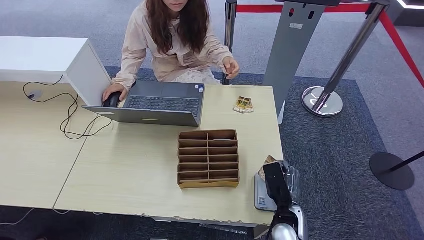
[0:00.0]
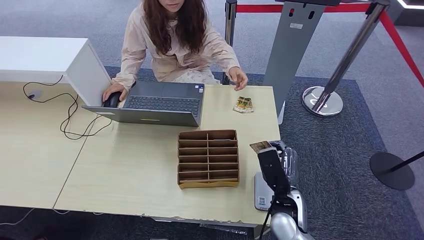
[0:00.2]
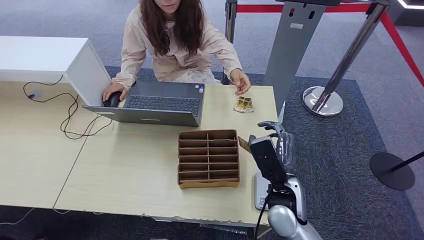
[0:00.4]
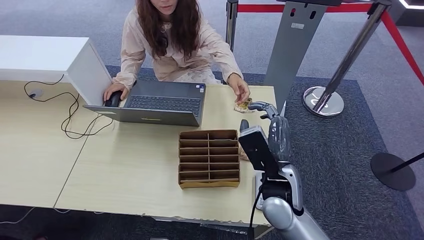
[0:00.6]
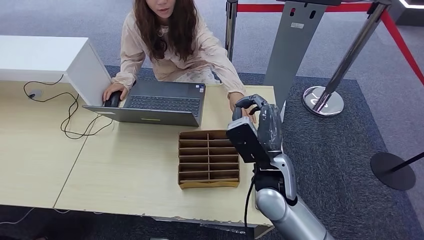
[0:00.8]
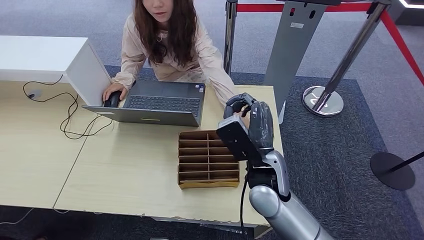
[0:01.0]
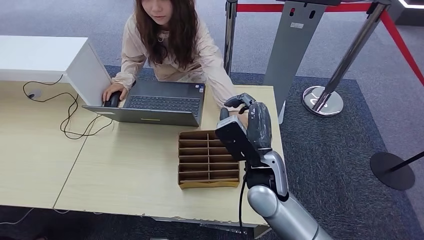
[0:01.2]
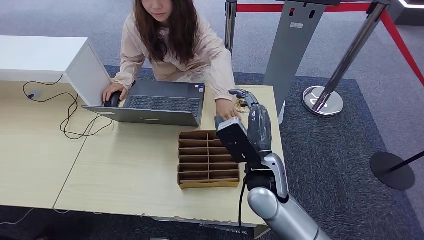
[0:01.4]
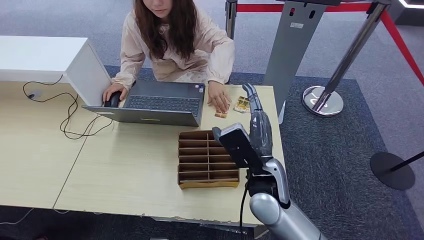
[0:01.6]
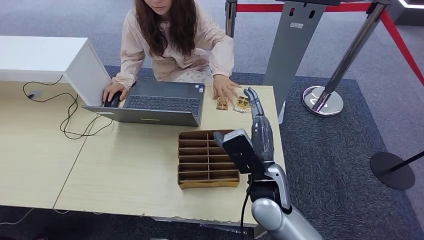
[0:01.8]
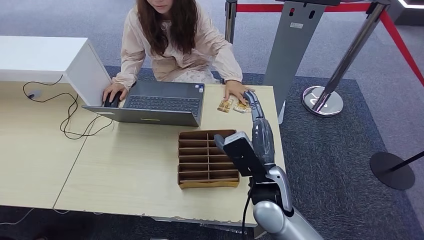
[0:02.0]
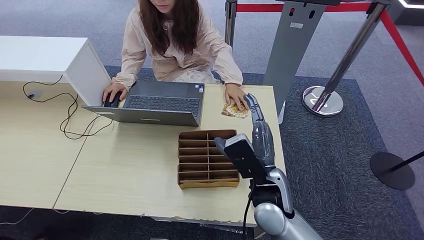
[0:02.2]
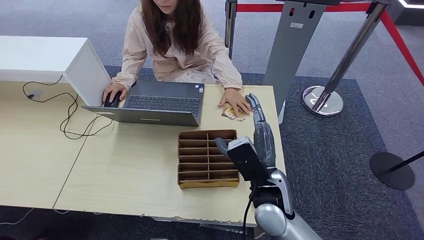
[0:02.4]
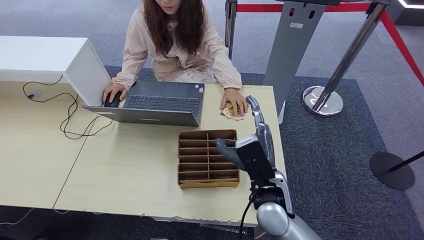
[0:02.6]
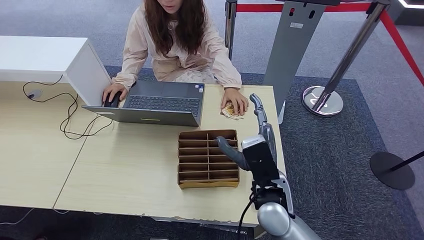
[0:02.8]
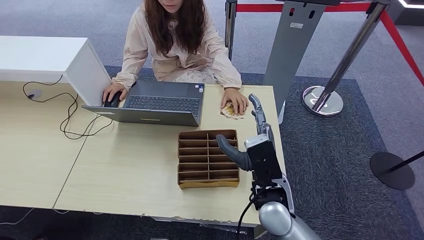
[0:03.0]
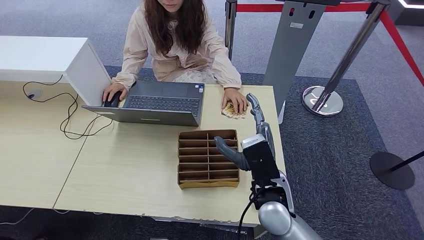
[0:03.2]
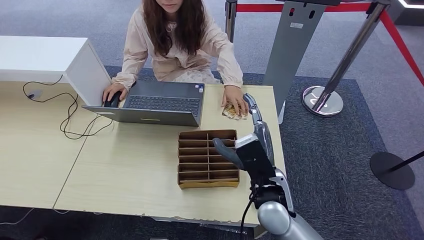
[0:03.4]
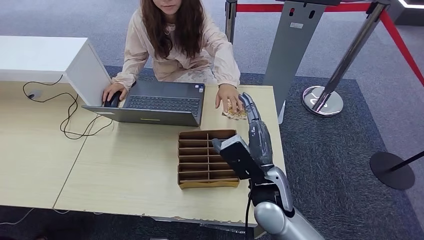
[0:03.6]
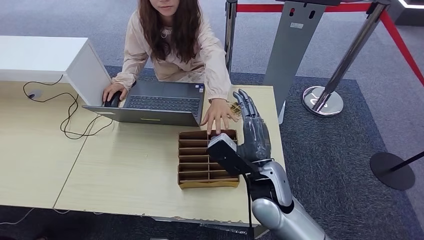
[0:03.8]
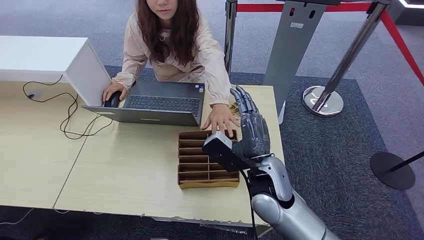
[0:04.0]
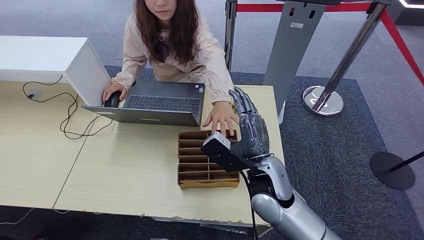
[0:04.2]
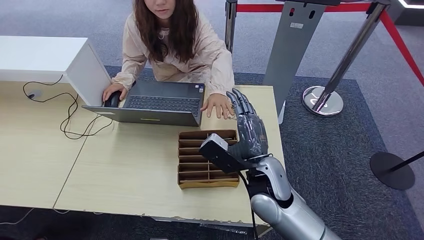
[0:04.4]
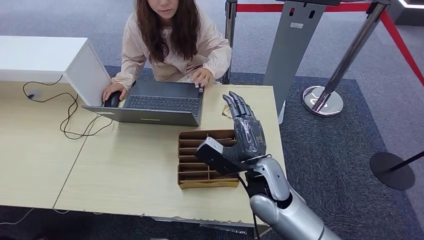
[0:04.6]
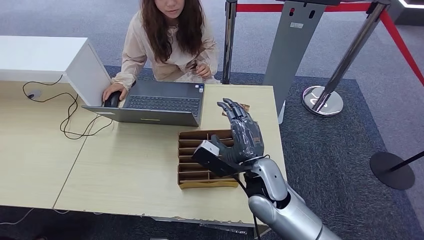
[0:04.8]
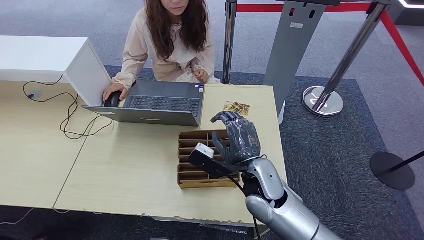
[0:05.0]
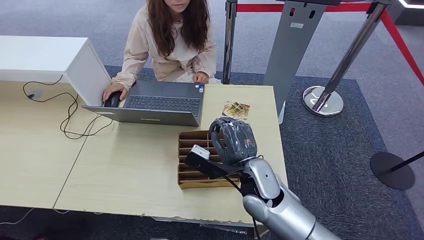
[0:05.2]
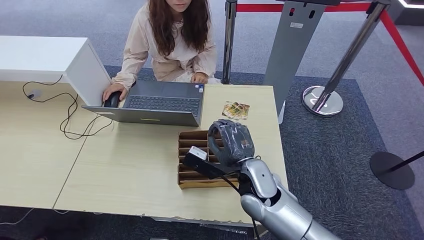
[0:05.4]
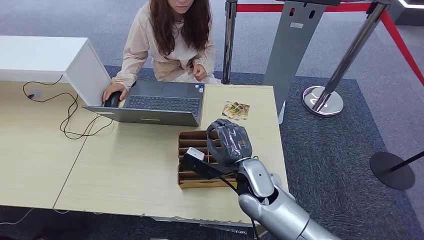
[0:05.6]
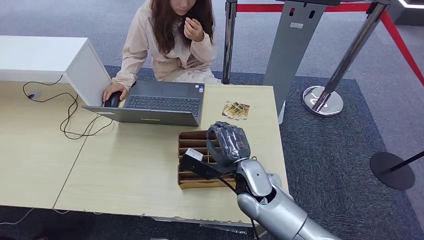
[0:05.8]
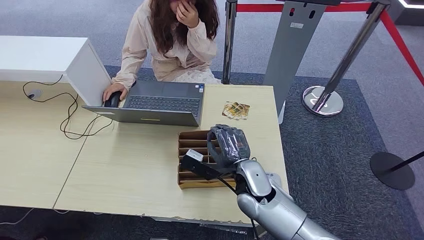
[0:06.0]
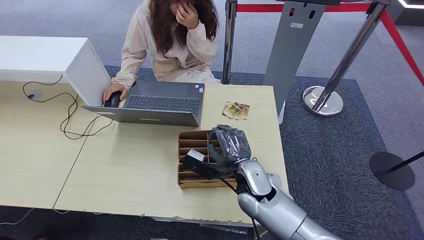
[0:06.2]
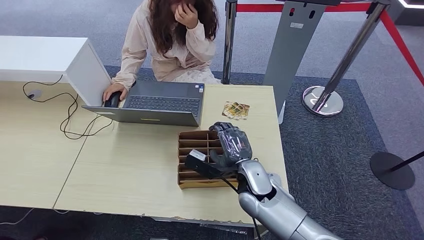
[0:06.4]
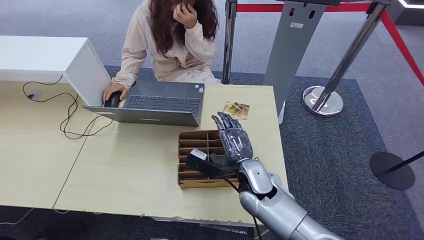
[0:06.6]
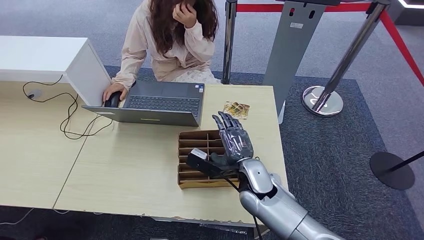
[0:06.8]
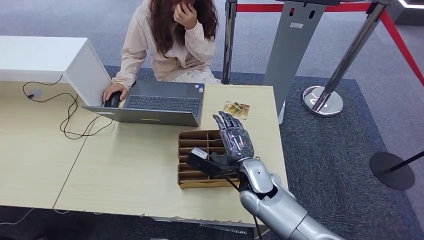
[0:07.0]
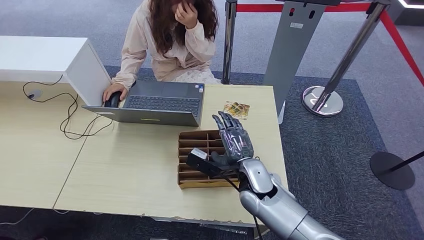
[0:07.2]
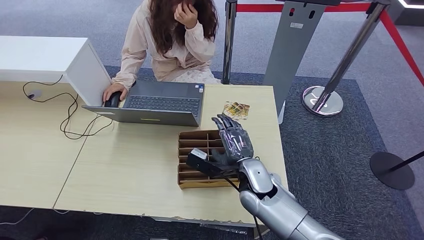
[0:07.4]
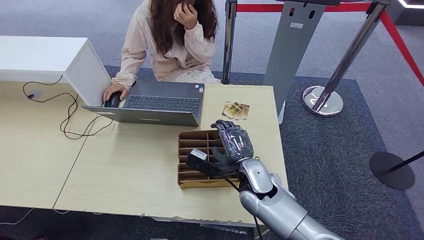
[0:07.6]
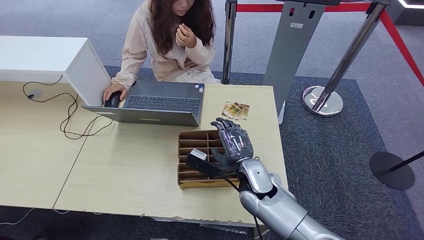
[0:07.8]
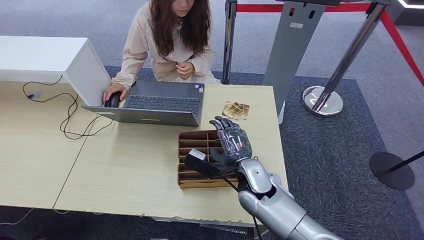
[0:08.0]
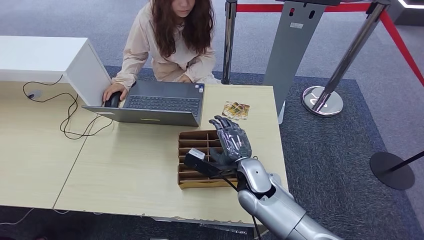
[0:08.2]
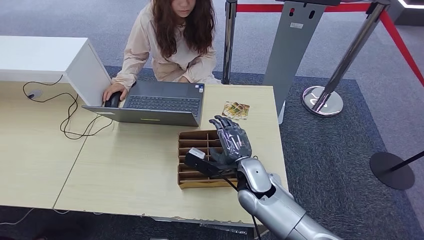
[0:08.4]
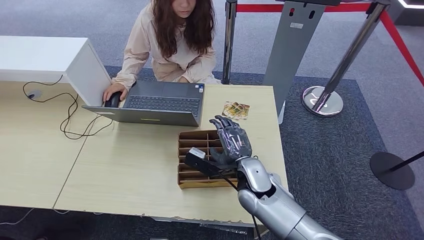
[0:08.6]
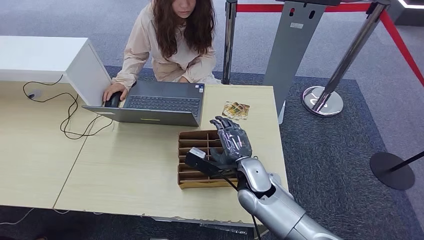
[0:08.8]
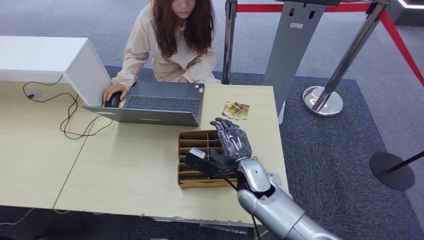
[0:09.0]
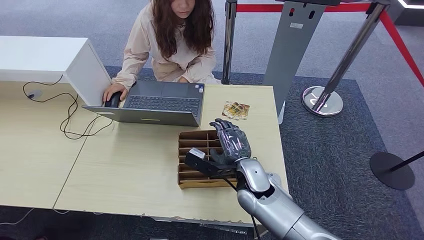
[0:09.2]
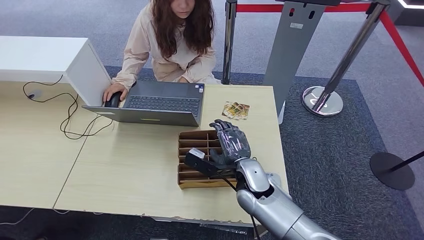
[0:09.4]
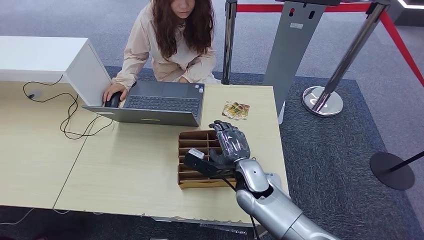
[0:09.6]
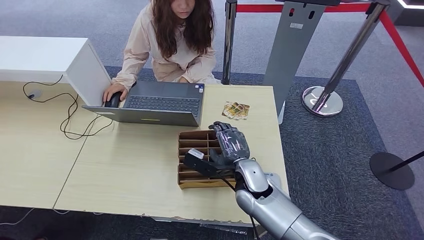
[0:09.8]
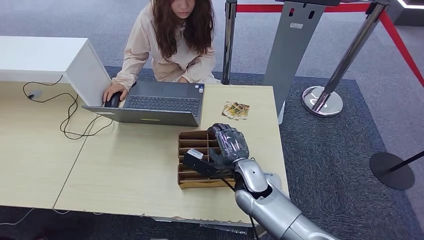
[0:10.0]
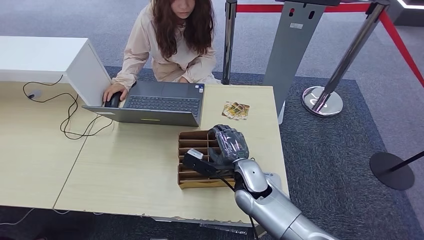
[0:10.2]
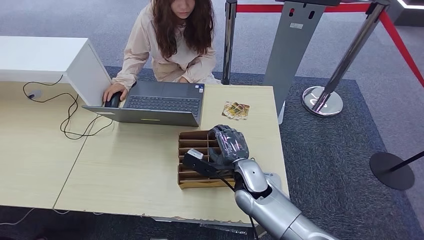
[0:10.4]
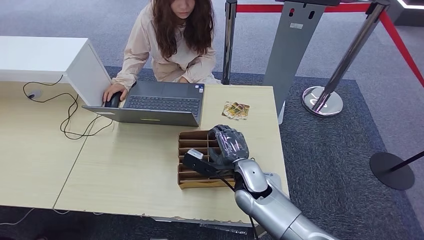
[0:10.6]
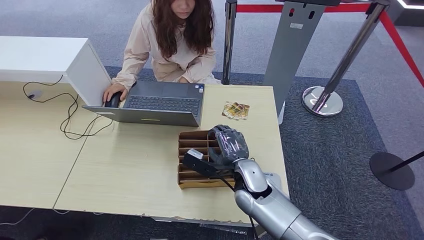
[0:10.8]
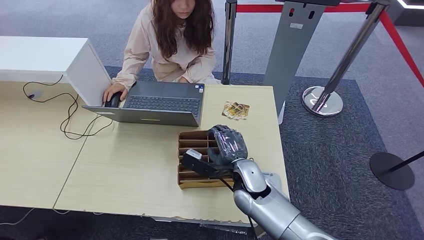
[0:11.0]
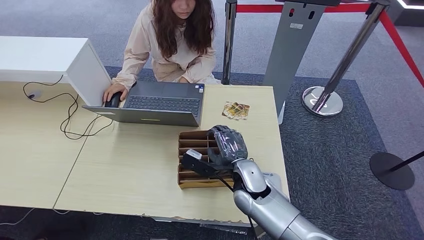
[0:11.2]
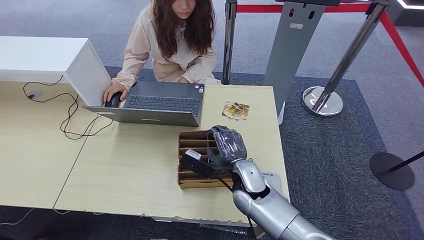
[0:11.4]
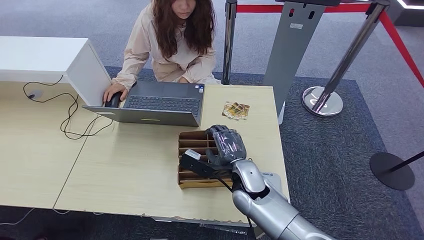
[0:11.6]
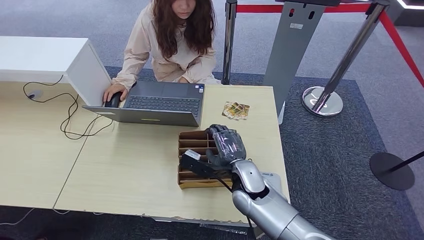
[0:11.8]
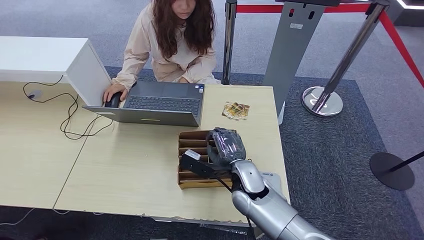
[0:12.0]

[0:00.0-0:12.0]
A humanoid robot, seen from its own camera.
Step, 0:00.0 to 0:01.8: Hand the ID card to the person.
0:00.0 to 0:01.6: The right hand heads upward and to the left, covering about 20 cm.
0:01.6 to 0:03.0: There are only small adjustments of the hands.
0:04.4 to 0:06.0: The right hand heads downward, covering approximately 5 cm.
0:06.0 to 0:07.6: The hands make only small movements.
0:07.6 to 0:10.4: Neither hand changes place.
0:10.4 to 0:12.0: Both hands stay put.

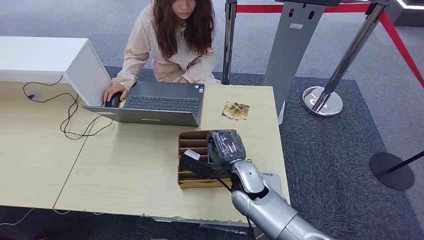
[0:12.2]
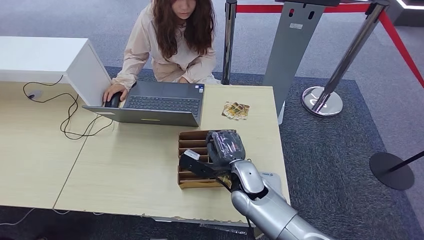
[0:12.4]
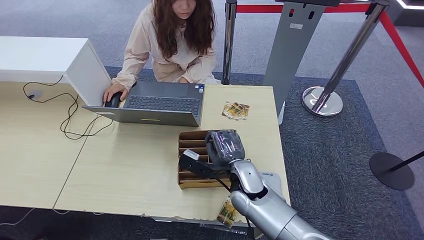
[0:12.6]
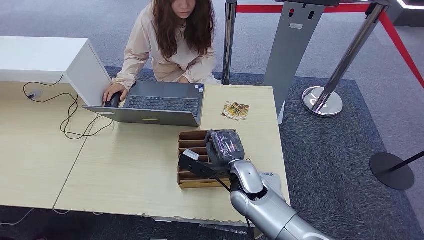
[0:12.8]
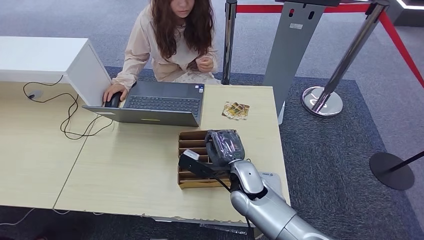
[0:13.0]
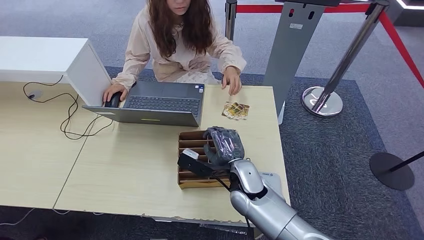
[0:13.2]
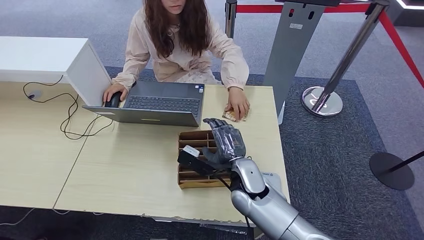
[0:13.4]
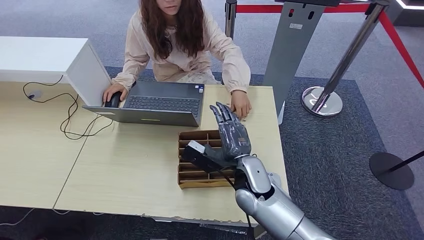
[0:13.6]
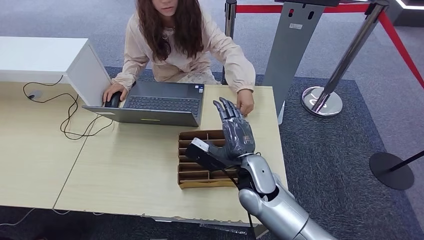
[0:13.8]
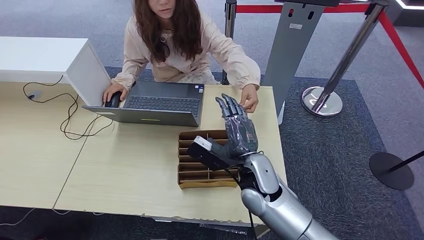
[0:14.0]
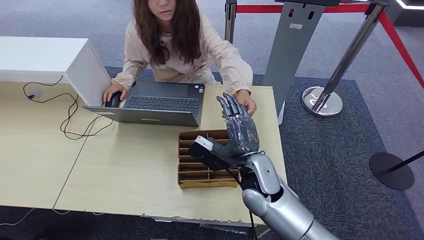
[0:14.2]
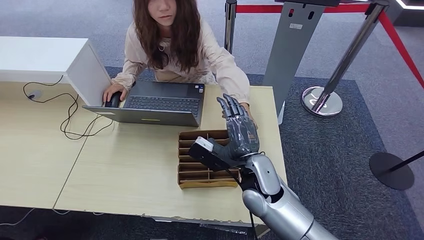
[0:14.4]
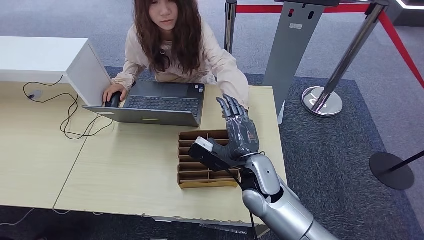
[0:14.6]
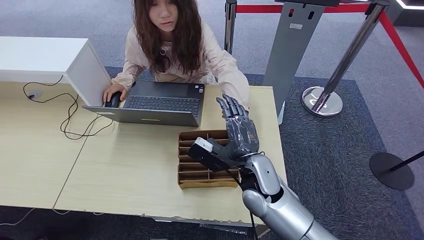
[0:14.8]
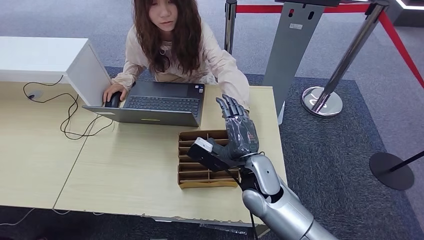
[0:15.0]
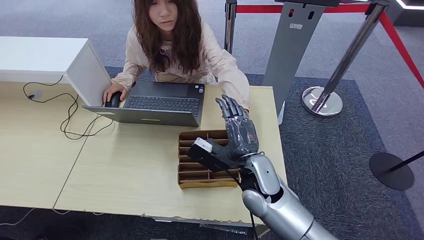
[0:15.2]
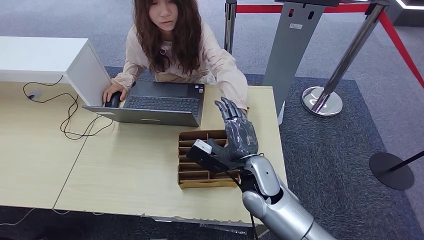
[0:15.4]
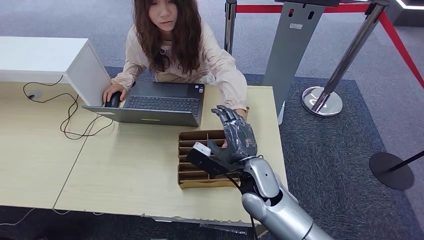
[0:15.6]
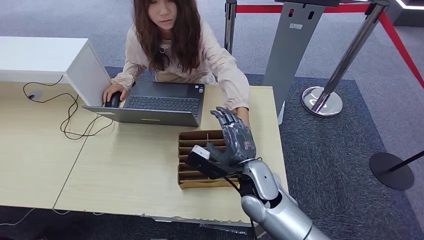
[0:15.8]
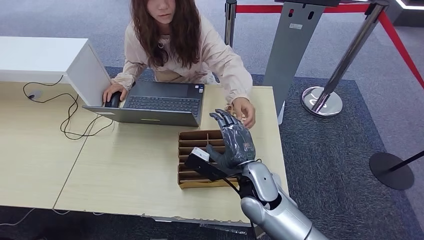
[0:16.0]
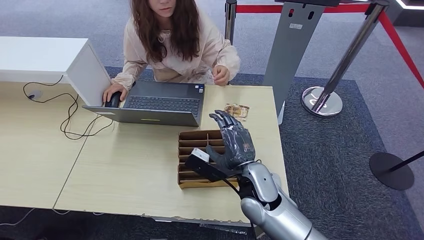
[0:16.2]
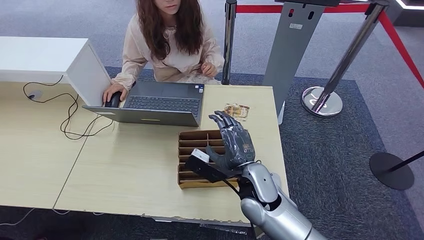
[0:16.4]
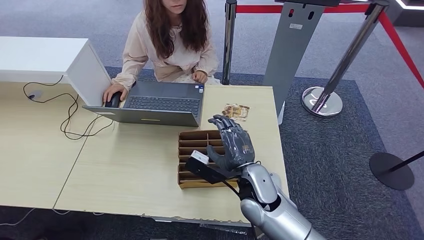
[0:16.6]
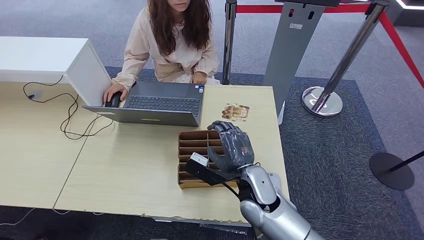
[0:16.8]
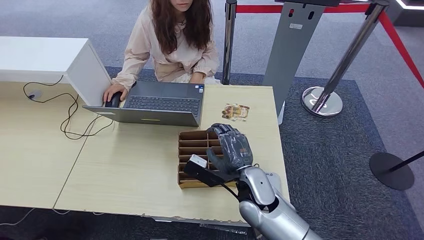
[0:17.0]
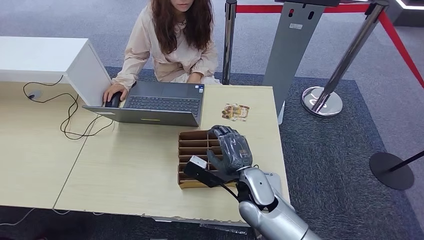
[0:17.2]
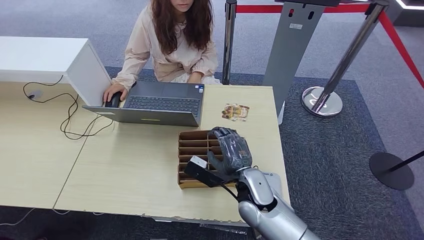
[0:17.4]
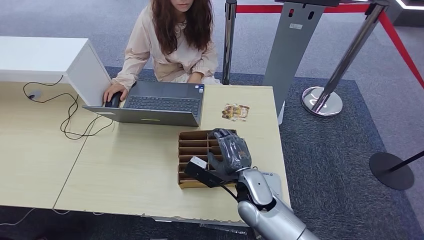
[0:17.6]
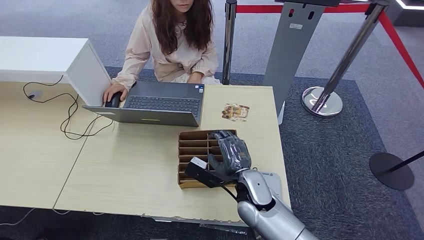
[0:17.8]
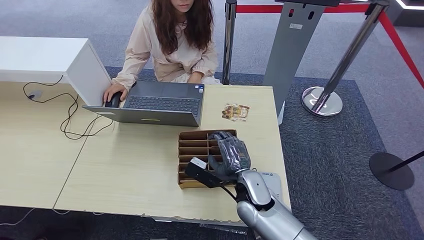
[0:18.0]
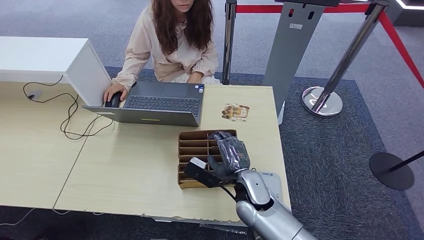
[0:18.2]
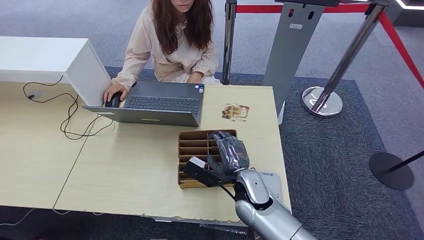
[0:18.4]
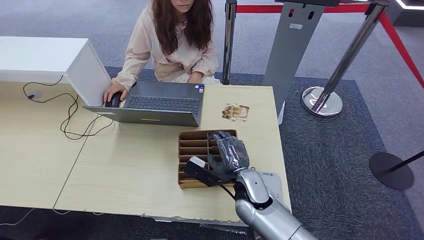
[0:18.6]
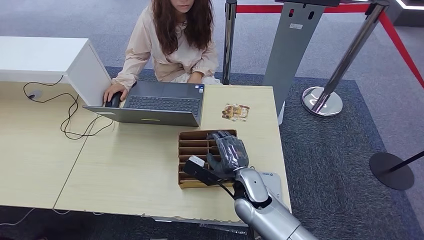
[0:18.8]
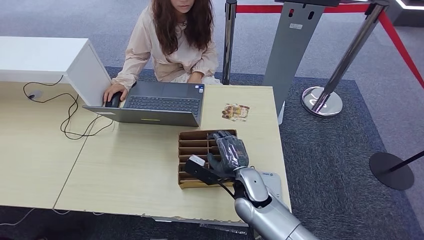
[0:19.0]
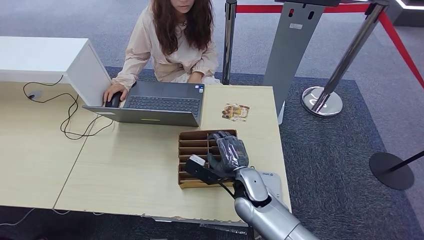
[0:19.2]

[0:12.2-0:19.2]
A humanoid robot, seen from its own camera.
0:12.2 to 0:19.2: There are only small adjustments of the hands.
